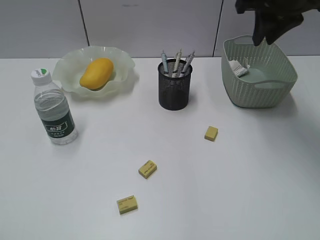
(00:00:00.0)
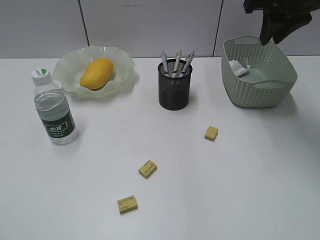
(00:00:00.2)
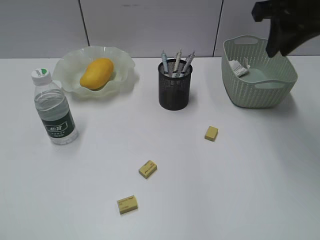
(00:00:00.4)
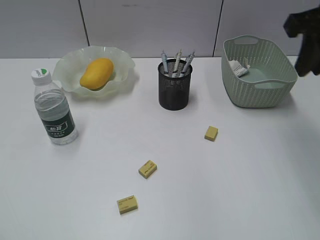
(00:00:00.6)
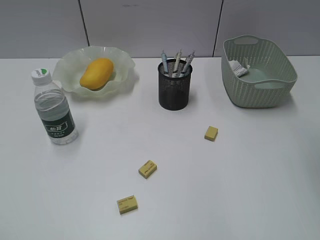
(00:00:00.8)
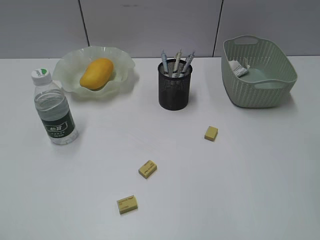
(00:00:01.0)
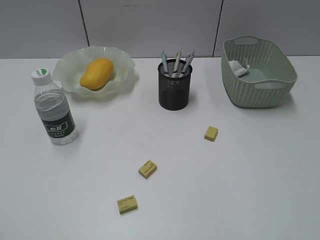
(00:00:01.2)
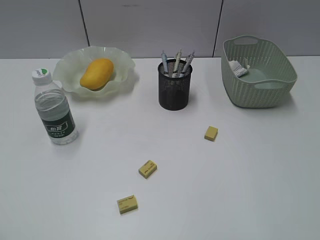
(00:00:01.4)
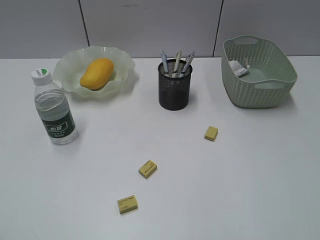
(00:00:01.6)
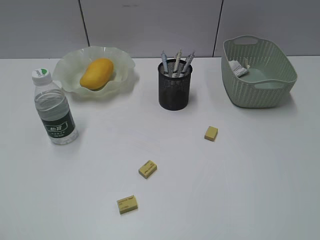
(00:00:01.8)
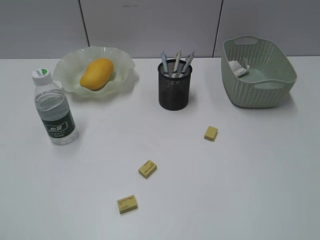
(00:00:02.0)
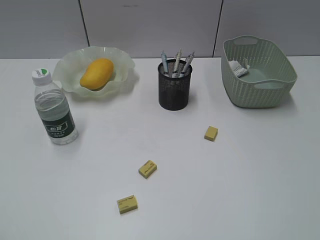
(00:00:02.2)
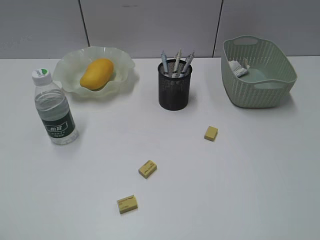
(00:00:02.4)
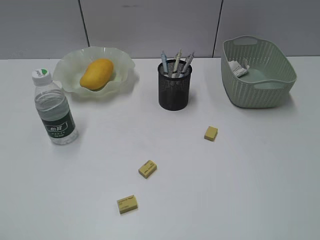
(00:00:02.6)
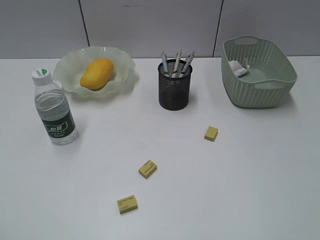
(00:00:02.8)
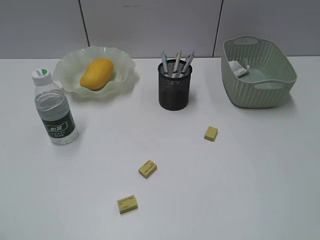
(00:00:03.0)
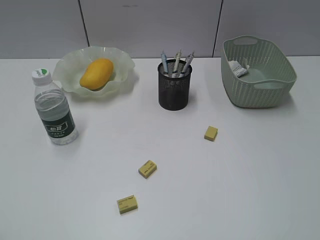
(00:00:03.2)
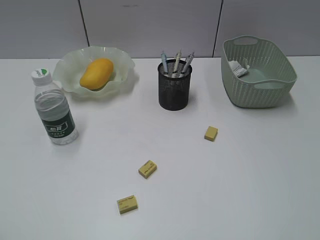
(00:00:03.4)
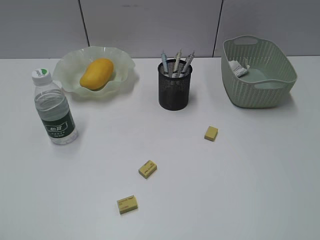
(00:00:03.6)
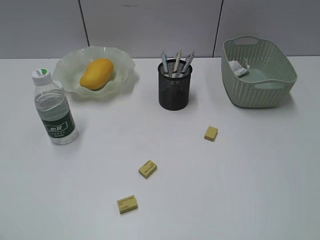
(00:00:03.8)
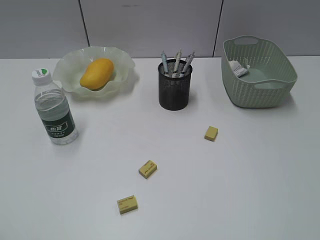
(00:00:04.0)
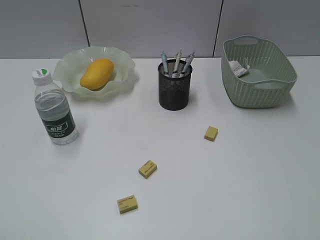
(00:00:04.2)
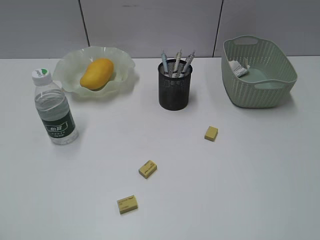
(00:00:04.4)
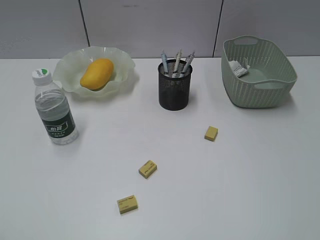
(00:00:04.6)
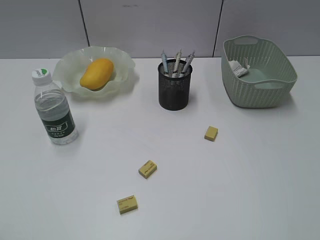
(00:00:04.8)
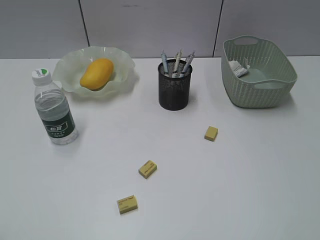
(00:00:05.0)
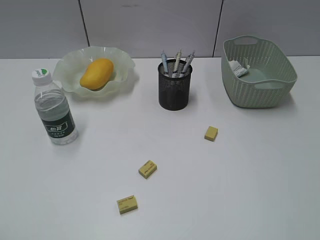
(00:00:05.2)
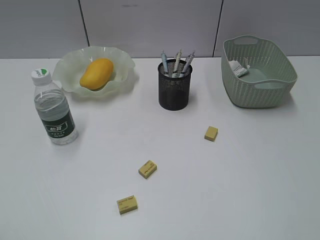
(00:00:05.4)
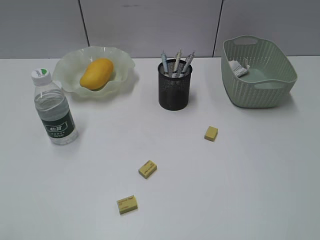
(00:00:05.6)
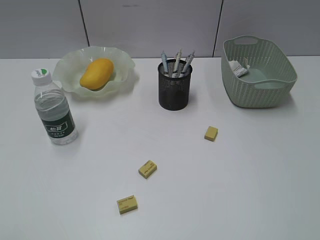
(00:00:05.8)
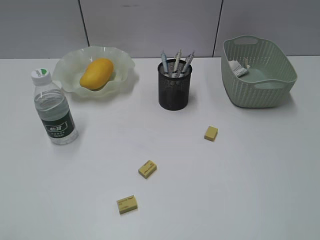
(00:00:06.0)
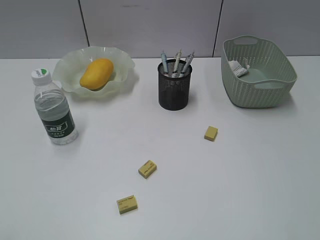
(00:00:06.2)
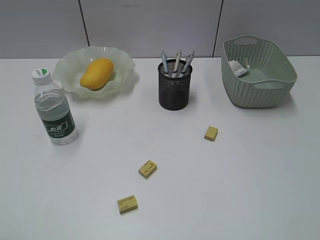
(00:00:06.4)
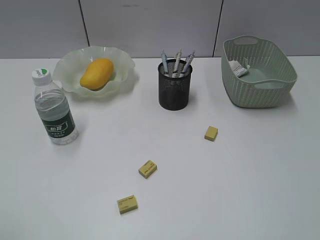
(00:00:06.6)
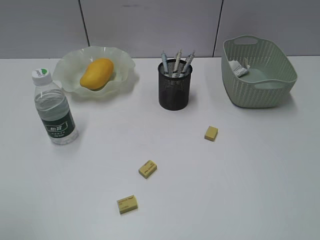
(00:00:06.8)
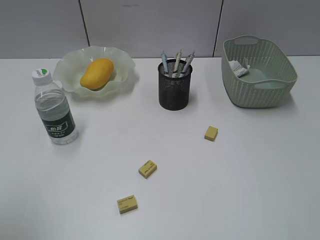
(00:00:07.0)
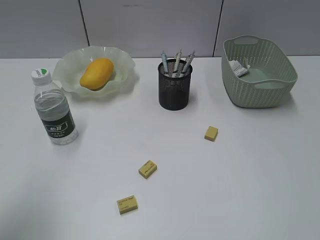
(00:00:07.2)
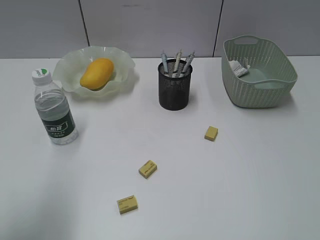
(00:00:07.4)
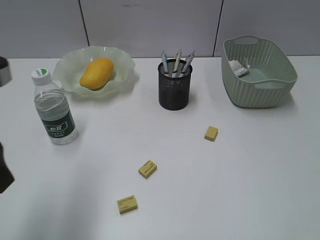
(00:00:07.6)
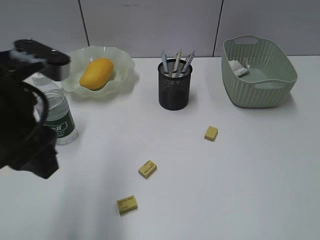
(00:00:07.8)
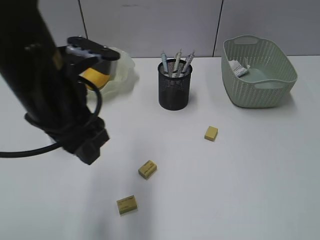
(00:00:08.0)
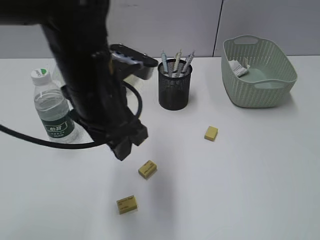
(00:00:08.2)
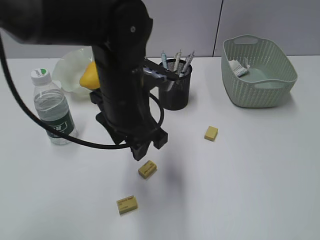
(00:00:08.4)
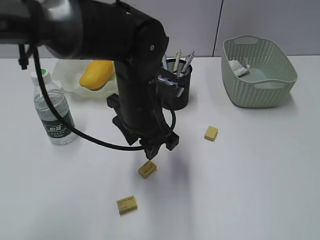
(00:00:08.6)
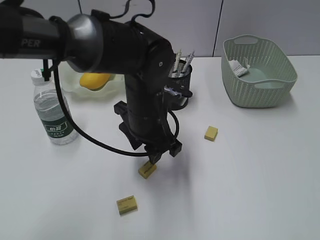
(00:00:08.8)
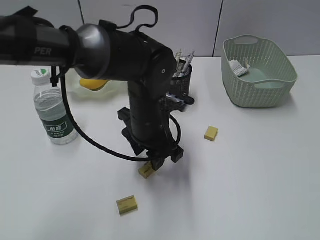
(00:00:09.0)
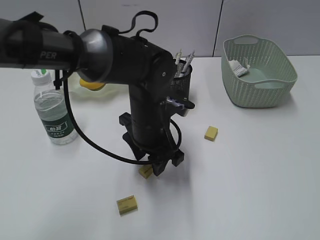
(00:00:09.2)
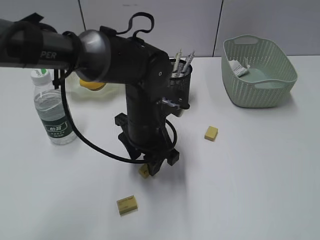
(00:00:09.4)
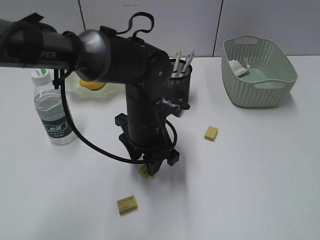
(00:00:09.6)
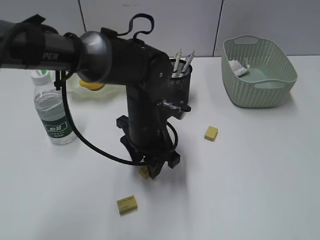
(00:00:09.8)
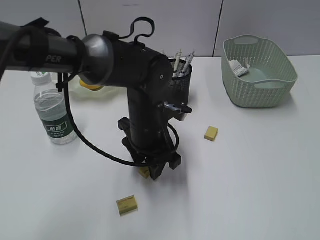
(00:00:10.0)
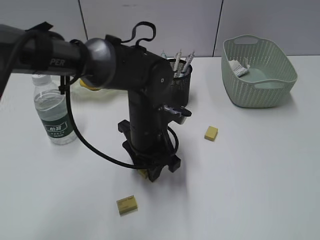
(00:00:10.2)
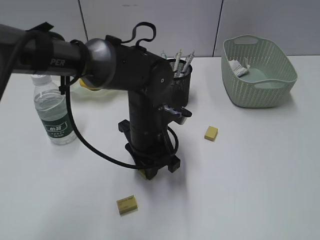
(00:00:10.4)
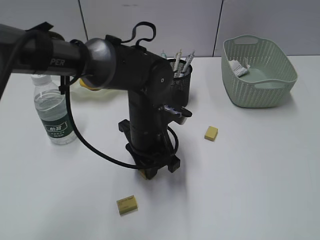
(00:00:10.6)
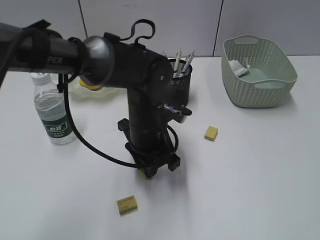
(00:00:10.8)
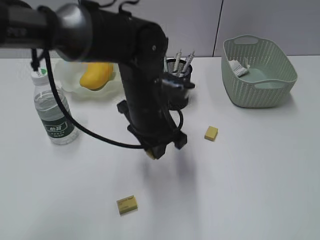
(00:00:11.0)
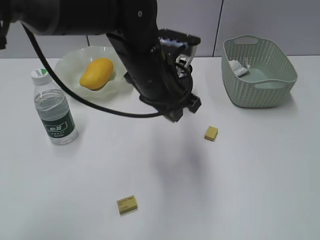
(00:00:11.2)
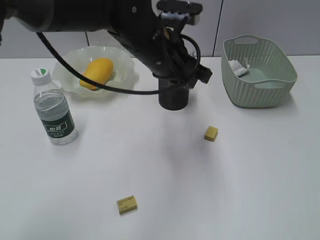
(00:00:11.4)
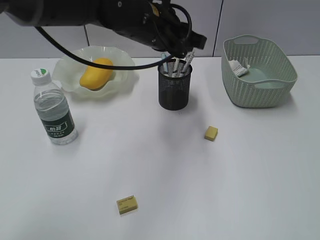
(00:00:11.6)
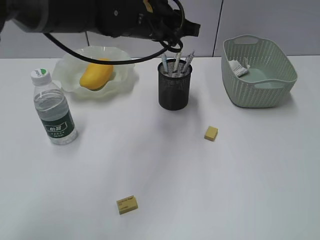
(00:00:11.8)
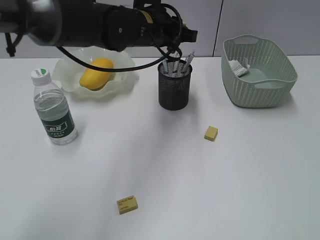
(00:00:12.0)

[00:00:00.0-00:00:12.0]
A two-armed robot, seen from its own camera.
Step, 00:00:00.0 to 00:00:10.6: Grasp the eraser with left gripper.
00:00:00.0 to 00:00:01.6: The right gripper moves backward, roughly 30 cm, and opens.
00:00:06.0 to 00:00:07.6: The left gripper is displaced forward and to the right by some 20 cm.
00:00:07.6 to 00:00:09.0: The left gripper moves to the right, downward and forward, approximately 30 cm.
00:00:09.0 to 00:00:10.4: The left gripper closes up.
00:00:10.4 to 00:00:12.0: The left gripper heads upward and forward, covering about 15 cm.

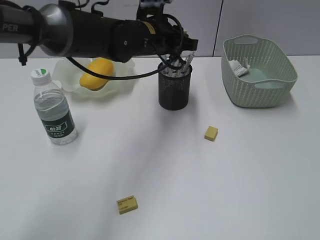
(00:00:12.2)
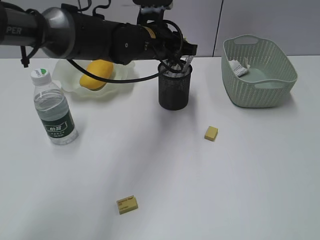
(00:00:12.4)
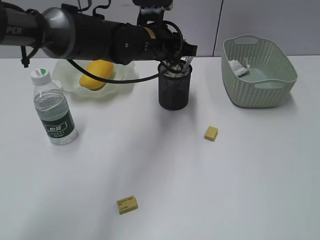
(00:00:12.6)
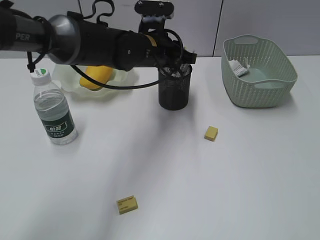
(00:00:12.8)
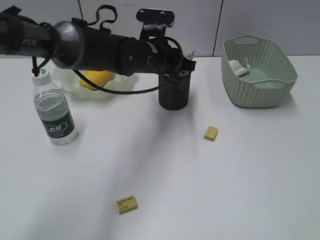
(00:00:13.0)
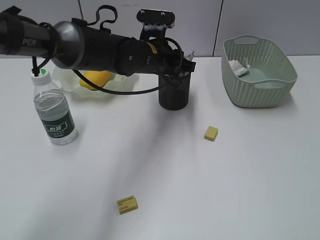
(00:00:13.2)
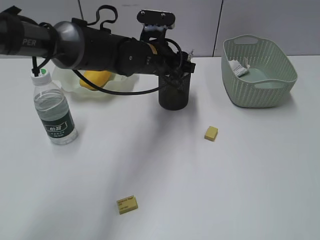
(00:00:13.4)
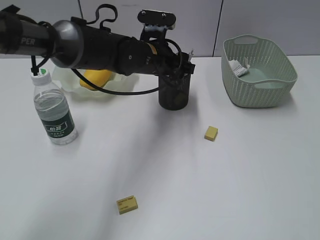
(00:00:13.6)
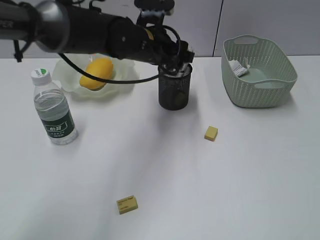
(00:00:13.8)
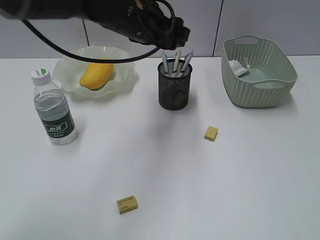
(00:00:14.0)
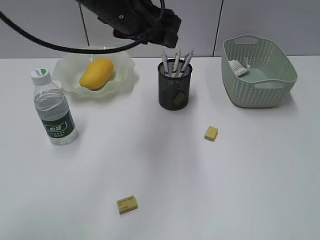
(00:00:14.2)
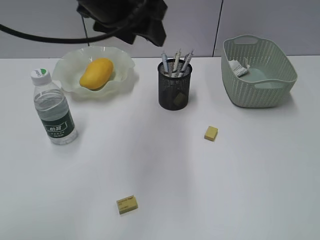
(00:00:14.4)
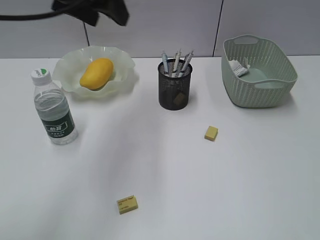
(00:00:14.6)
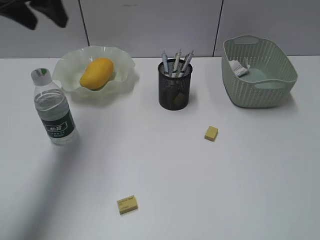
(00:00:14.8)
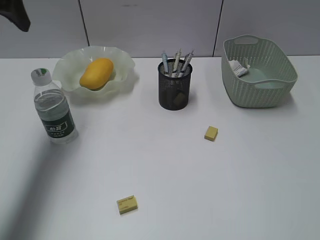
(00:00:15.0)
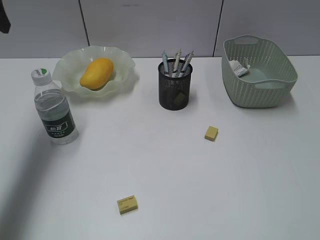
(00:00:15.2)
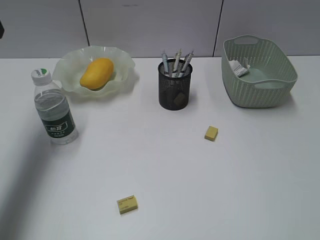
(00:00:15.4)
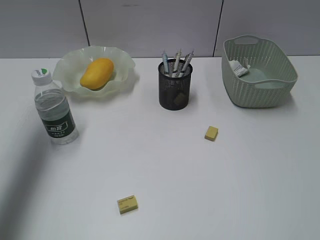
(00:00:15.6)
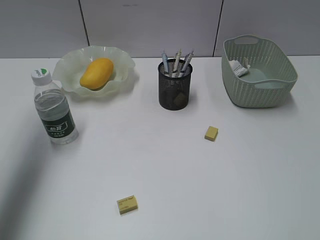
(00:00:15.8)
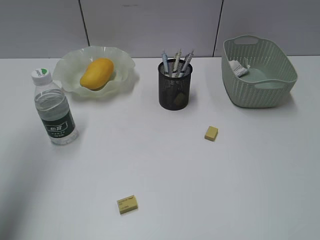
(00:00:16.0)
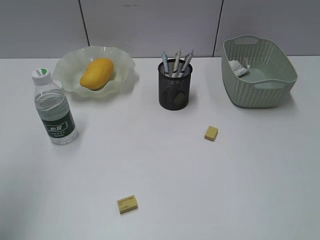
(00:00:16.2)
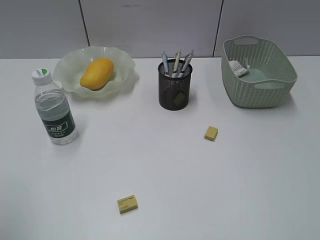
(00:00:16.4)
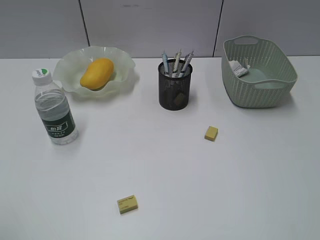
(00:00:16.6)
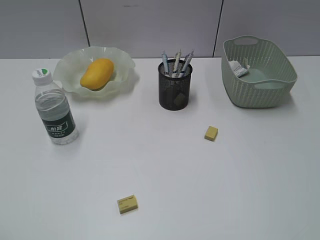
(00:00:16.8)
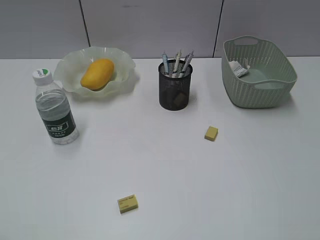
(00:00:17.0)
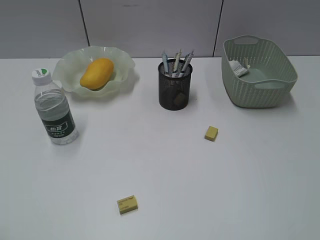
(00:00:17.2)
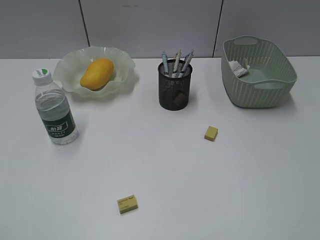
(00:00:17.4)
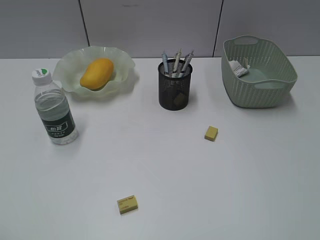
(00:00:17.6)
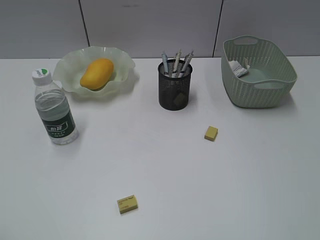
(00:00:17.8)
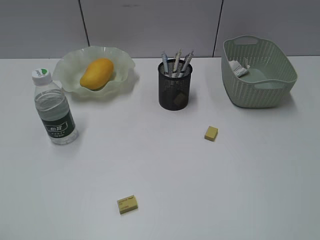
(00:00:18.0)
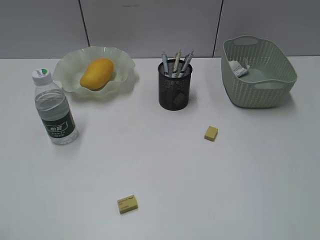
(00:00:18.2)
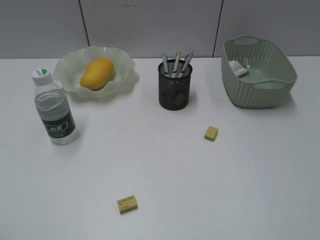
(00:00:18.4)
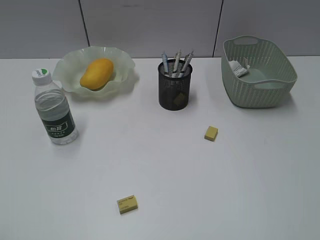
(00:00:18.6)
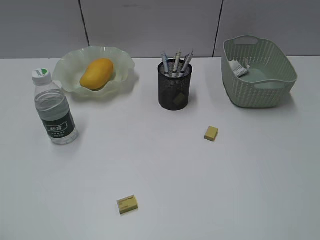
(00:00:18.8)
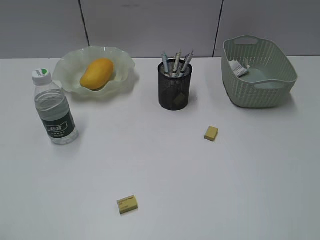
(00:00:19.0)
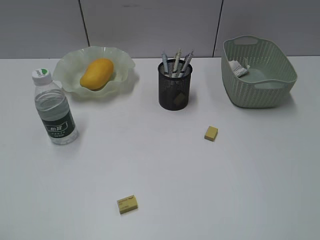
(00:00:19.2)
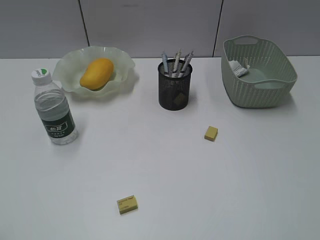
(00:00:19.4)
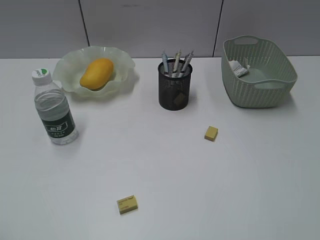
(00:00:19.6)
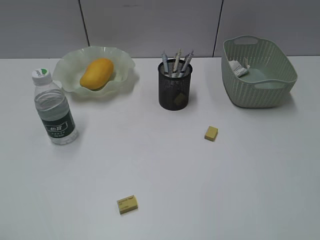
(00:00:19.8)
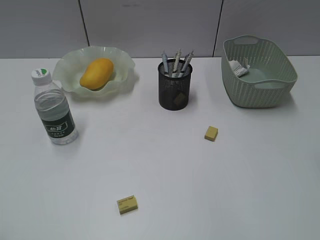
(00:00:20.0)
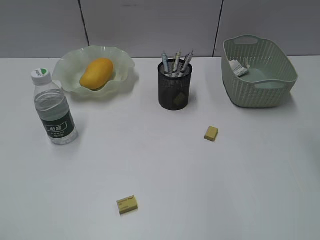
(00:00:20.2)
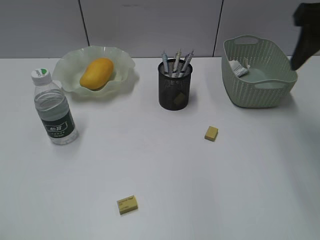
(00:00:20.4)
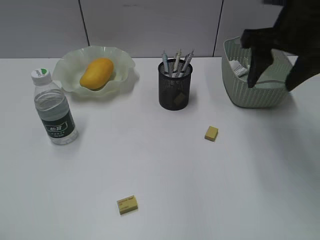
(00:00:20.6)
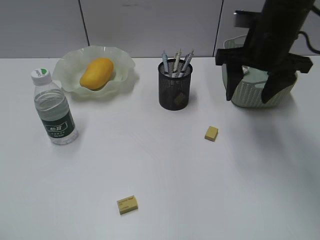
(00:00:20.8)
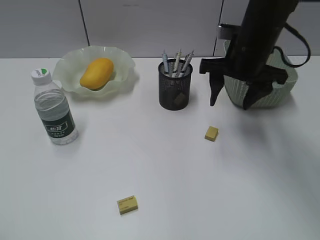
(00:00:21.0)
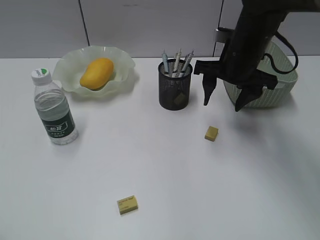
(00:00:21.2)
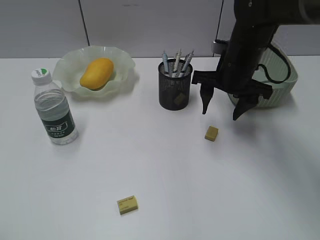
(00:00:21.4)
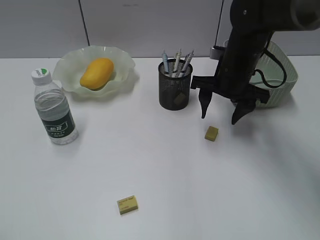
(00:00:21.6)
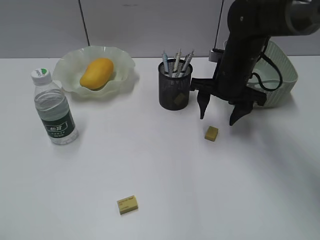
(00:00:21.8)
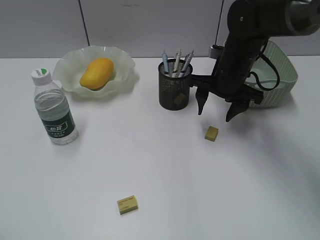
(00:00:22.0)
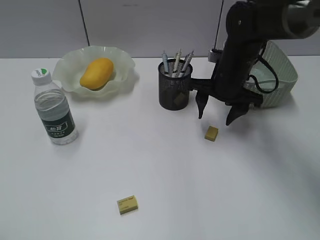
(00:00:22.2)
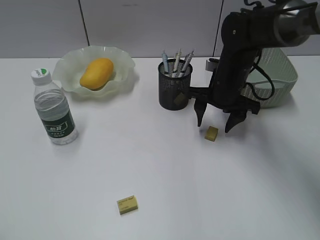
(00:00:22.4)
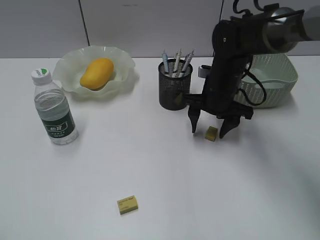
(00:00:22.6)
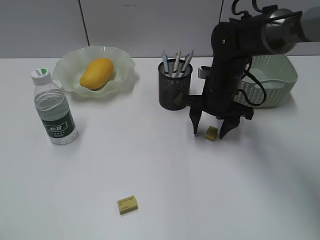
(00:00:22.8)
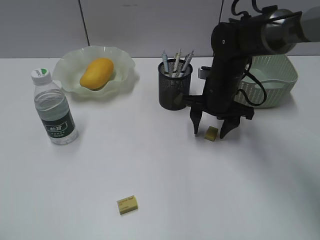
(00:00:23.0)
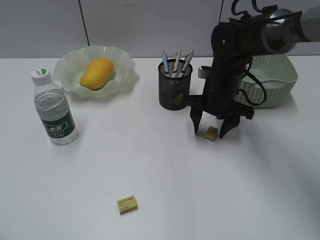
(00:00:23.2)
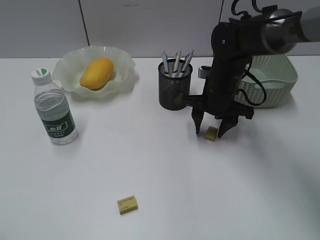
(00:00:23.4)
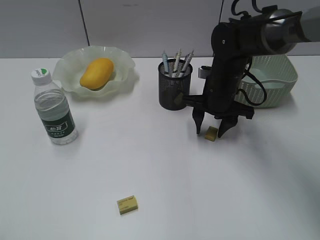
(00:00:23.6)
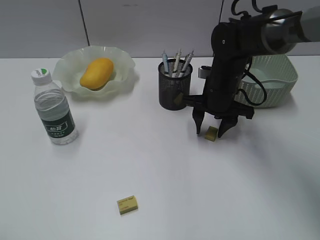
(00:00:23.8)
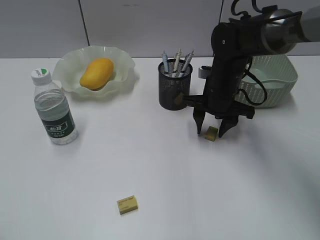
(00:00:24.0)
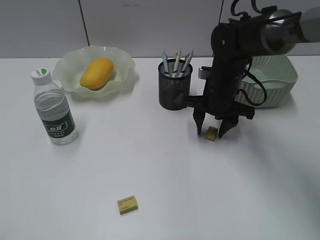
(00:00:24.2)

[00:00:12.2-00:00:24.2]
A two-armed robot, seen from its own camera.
00:00:12.2 to 00:00:13.8: The left gripper opens its fingers.
00:00:13.8 to 00:00:15.2: The left gripper heads to the left and upward, covering approximately 30 cm.
00:00:15.2 to 00:00:16.6: The left gripper moves backward, roughly 30 cm.
00:00:19.8 to 00:00:21.2: The right gripper is displaced forward, to the left and downward by about 35 cm.
00:00:21.2 to 00:00:22.6: The right gripper goes some 10 cm downward.
00:00:22.6 to 00:00:24.2: The two grippers keep their place.
